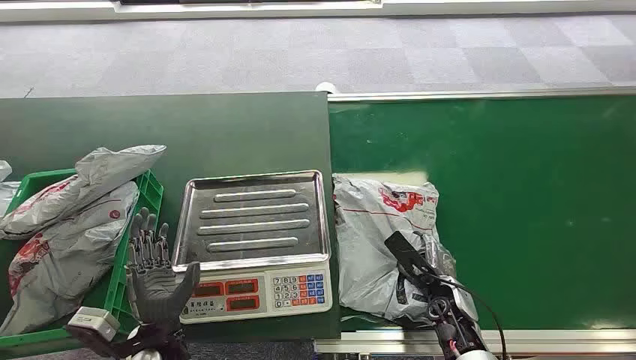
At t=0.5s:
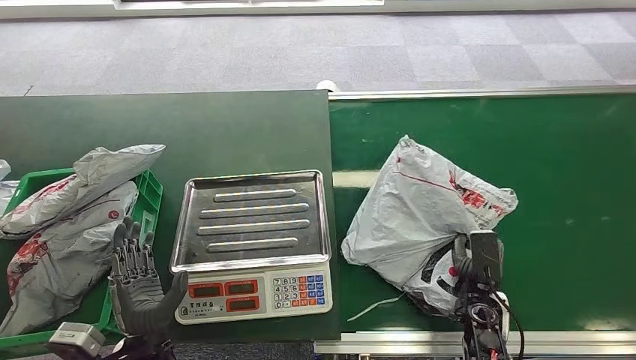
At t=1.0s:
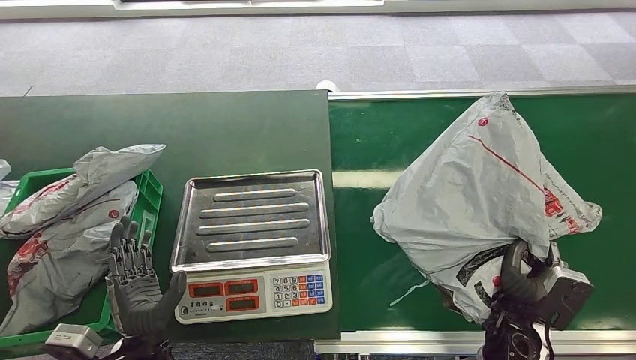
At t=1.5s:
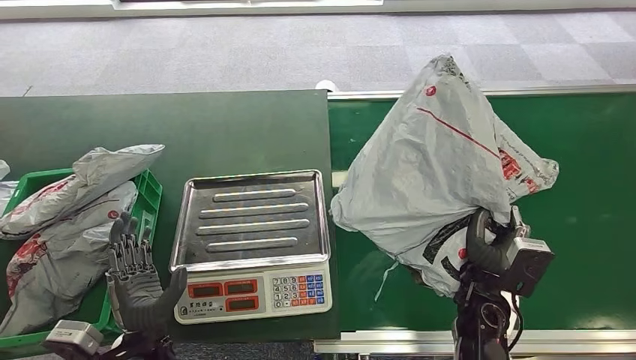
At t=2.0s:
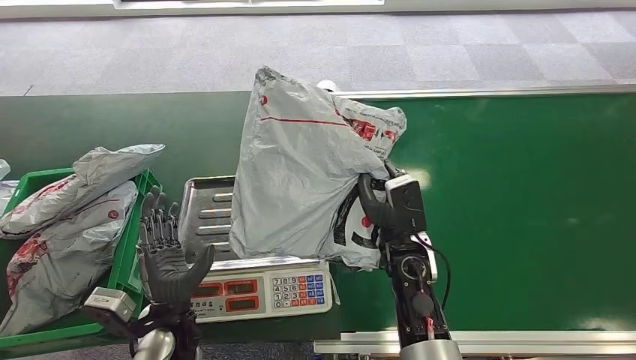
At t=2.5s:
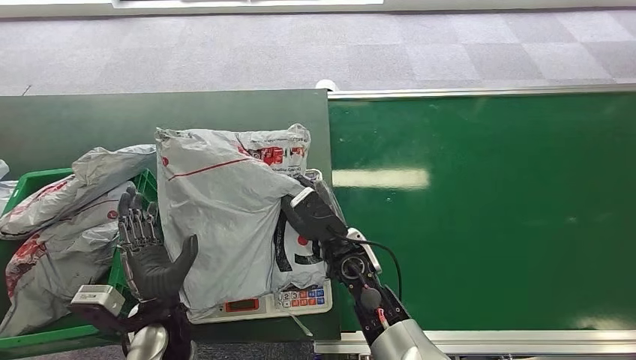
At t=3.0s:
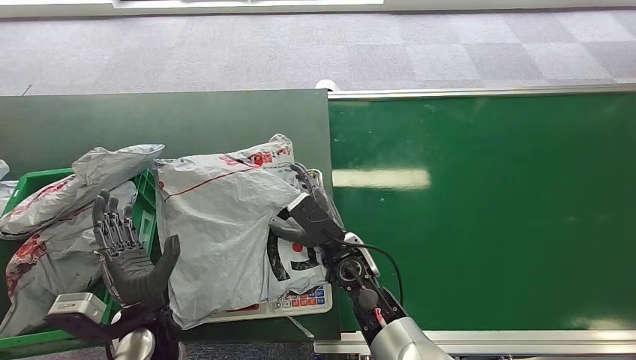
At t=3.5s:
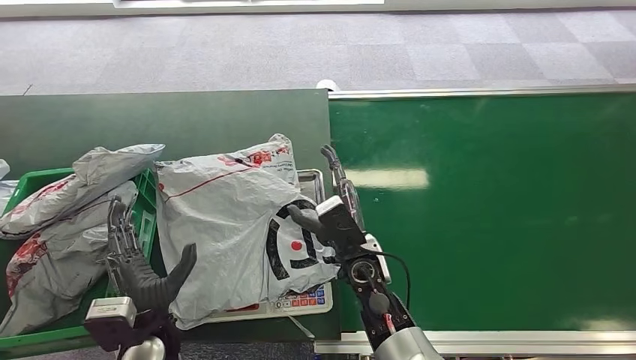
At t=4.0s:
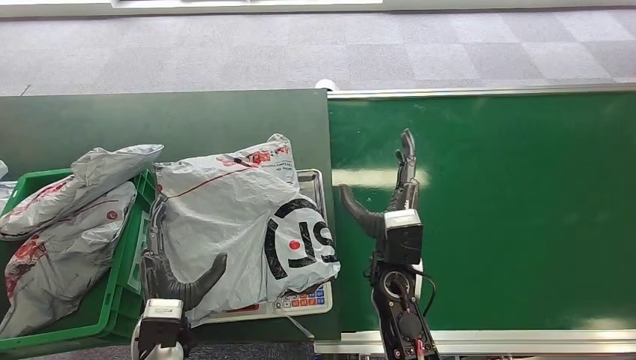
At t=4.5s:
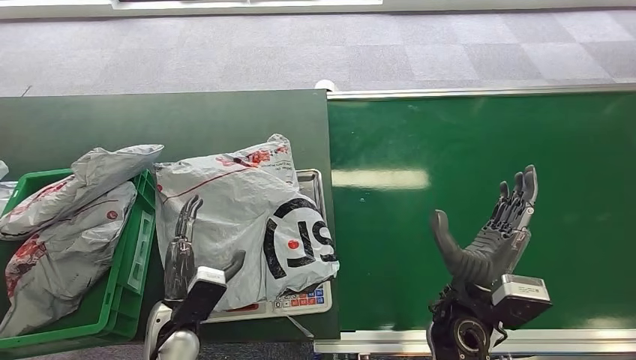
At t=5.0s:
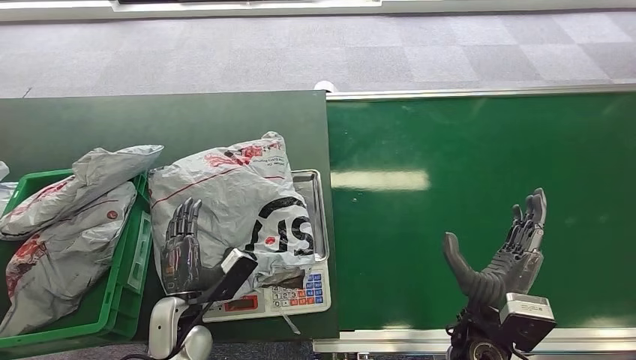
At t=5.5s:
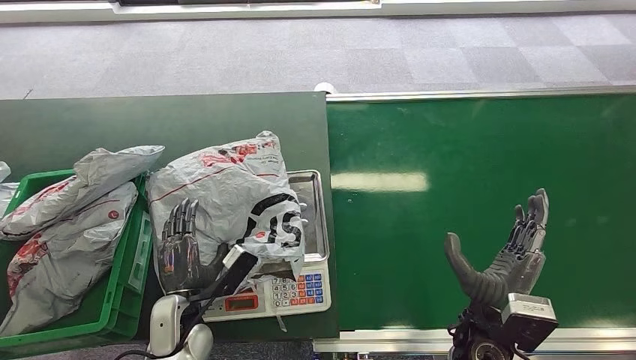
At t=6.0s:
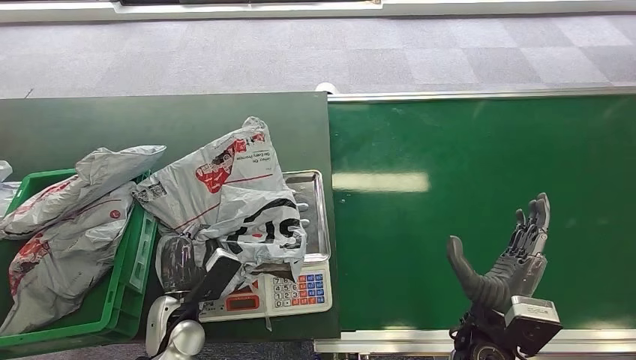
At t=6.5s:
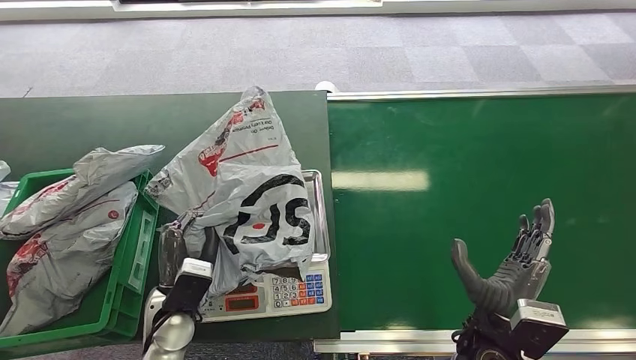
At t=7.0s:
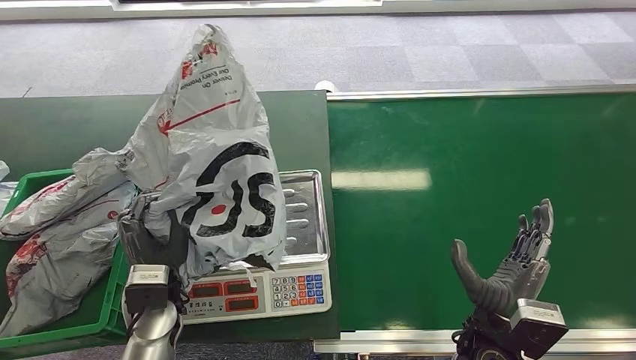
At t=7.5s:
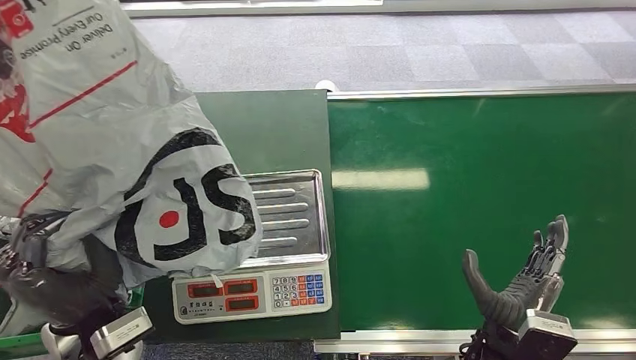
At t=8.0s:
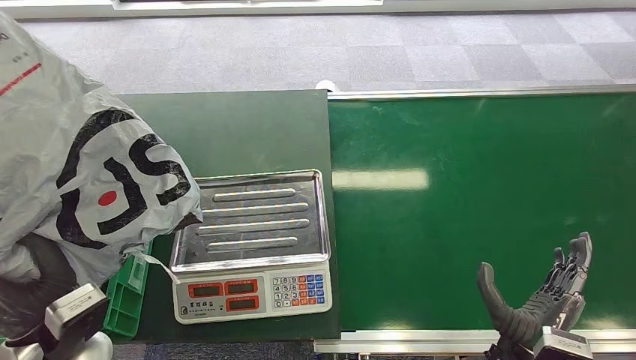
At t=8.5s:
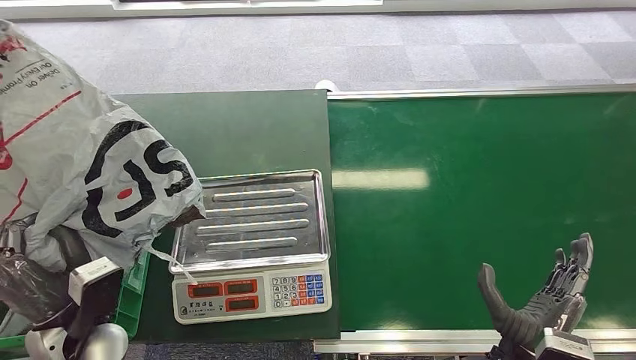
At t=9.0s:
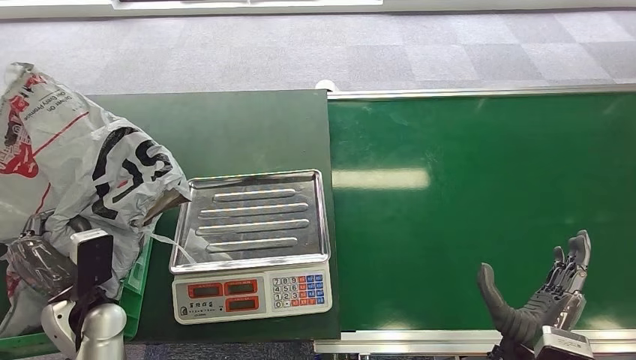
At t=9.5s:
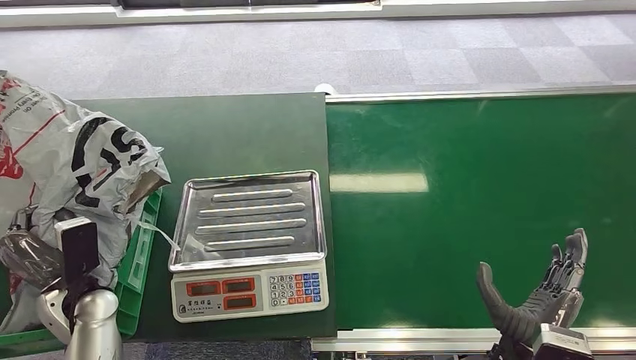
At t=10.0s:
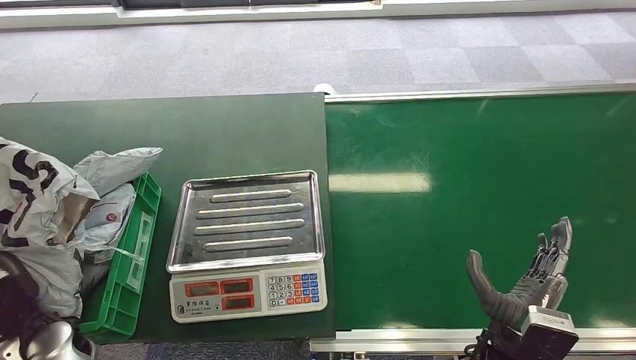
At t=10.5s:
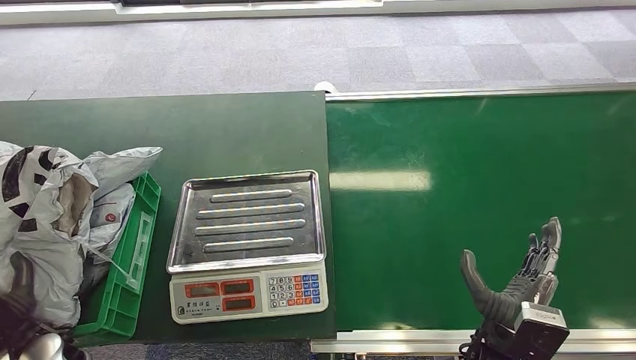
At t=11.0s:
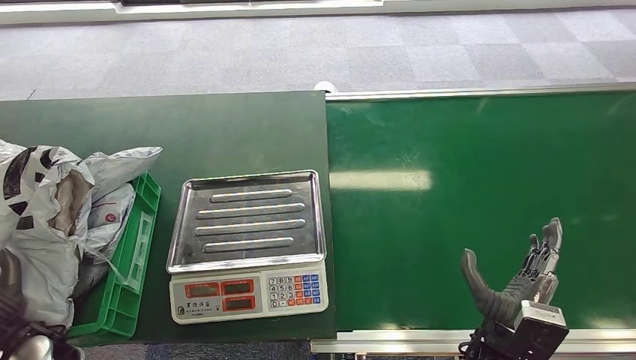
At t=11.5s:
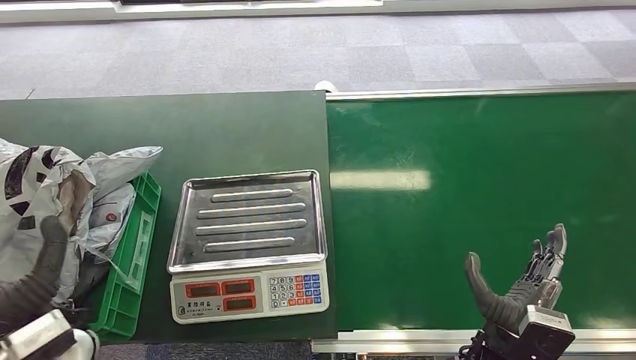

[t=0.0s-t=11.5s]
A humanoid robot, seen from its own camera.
Step, t=0.0s to t=1.5s: Pick up the package from the conveyor belt.
Step, t=2.5s to t=4.0s: Place the package onto the inbound machine.
Step, t=6.0s to t=7.5s: Pick up the package from the inbound machine.
Step, t=9.5s to t=11.5s: Place the package into the parcel locker.
